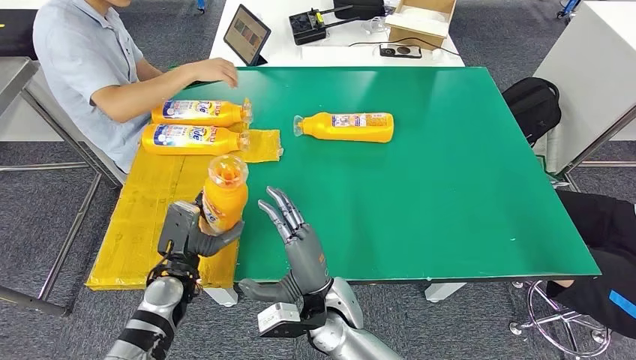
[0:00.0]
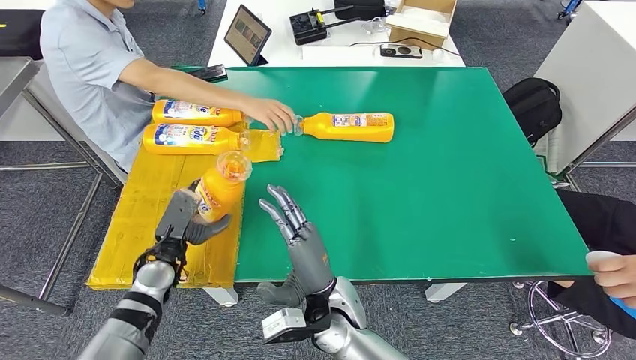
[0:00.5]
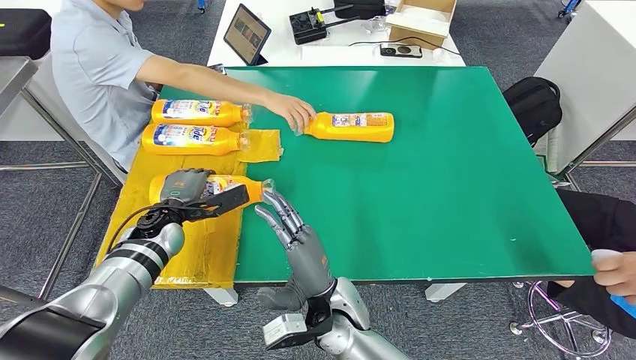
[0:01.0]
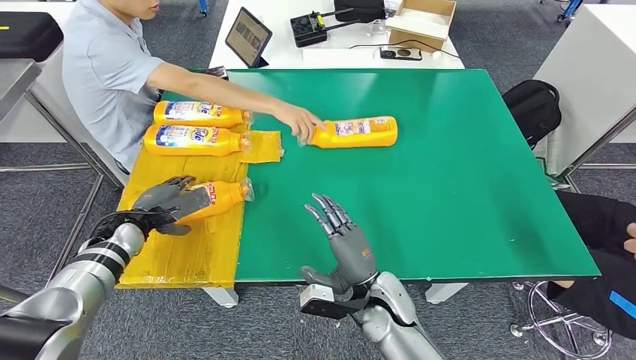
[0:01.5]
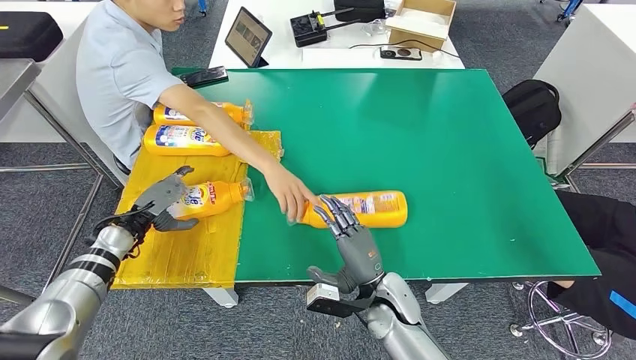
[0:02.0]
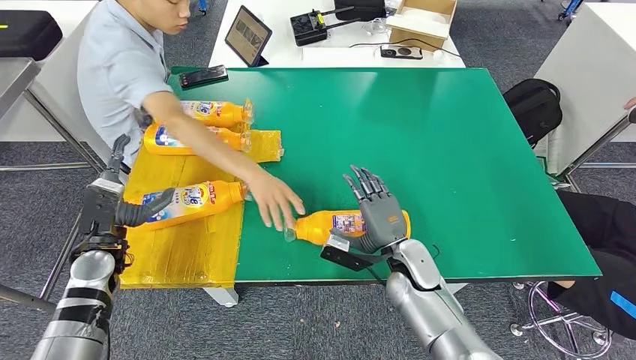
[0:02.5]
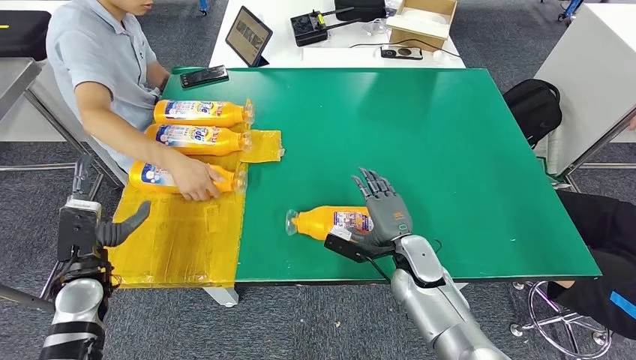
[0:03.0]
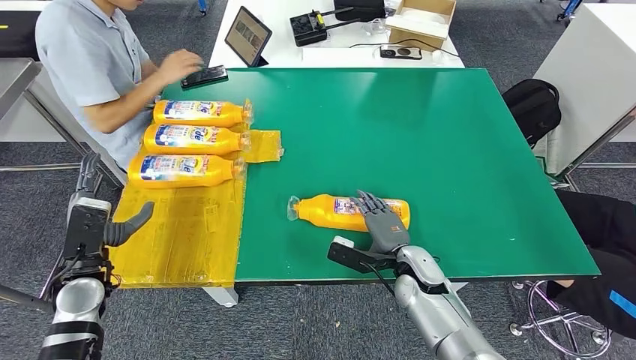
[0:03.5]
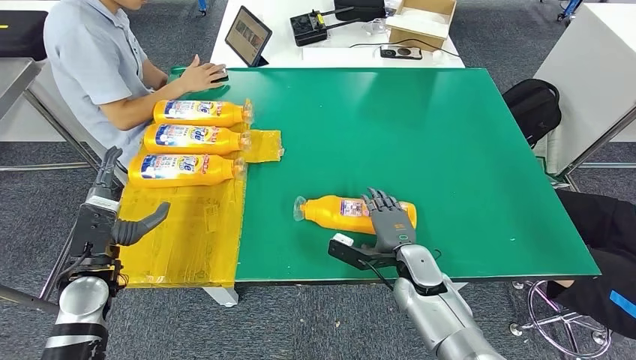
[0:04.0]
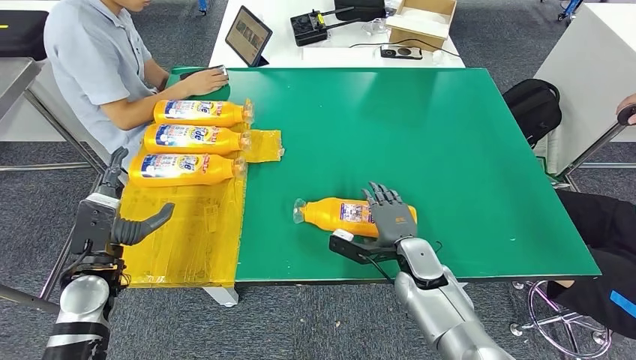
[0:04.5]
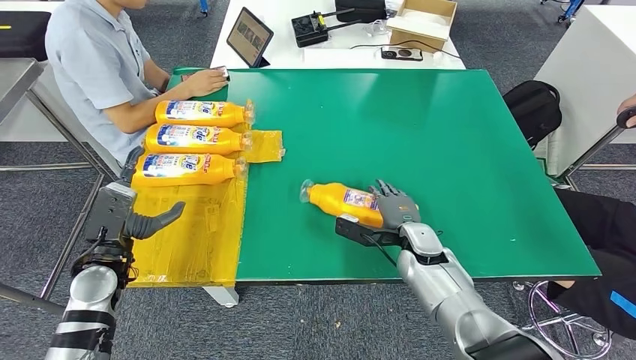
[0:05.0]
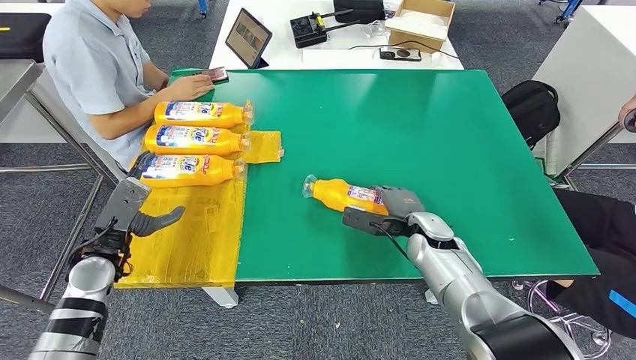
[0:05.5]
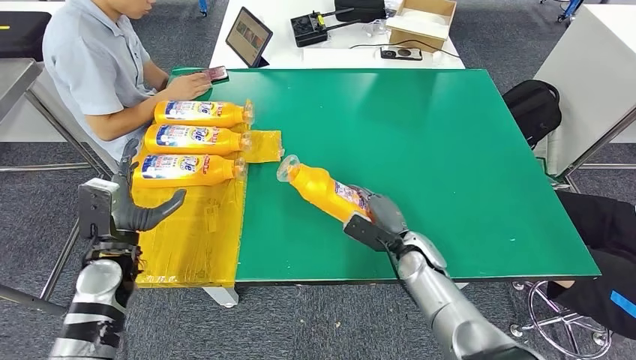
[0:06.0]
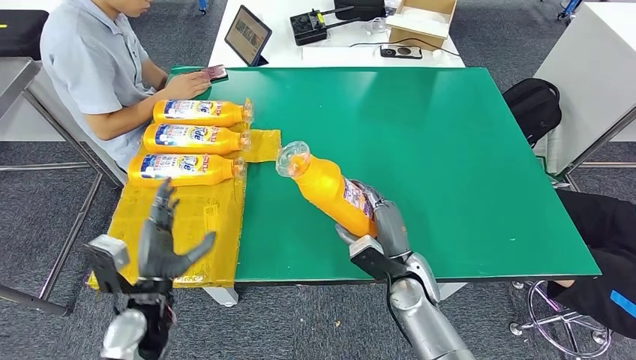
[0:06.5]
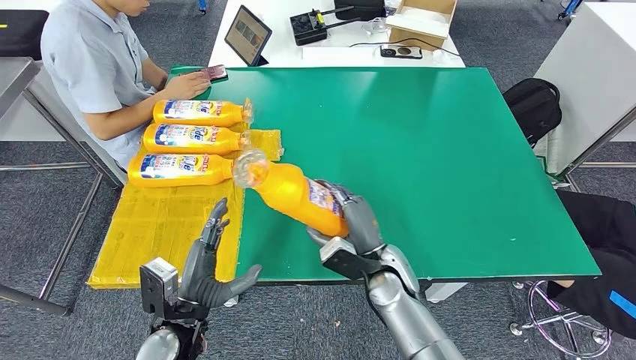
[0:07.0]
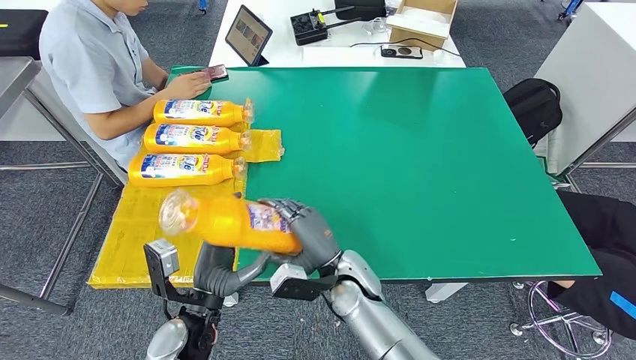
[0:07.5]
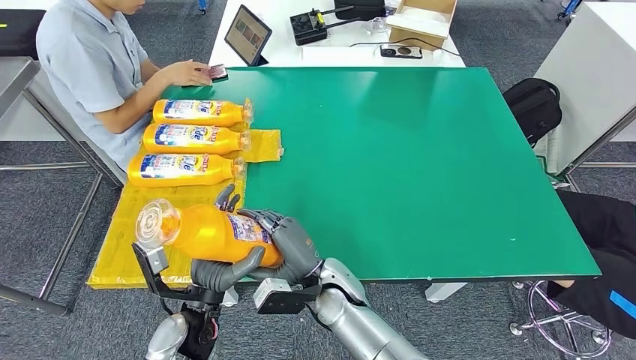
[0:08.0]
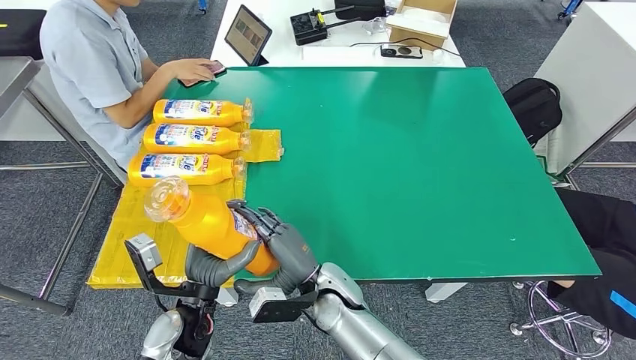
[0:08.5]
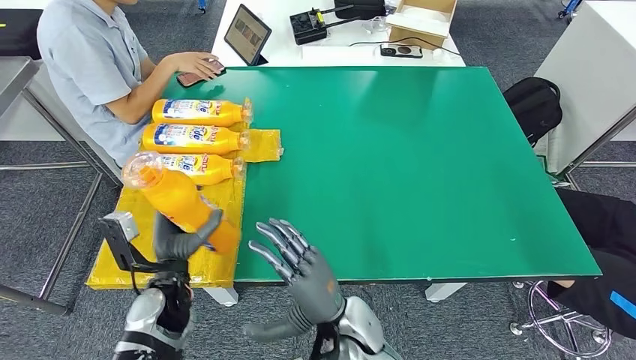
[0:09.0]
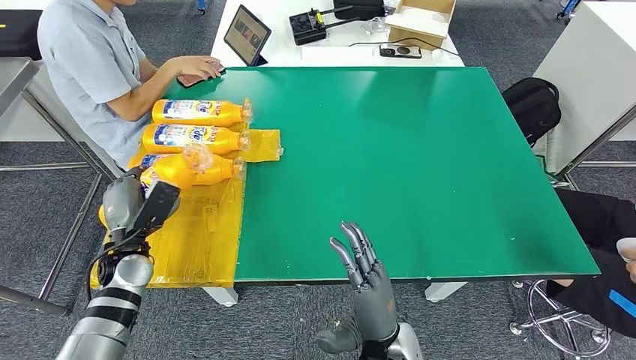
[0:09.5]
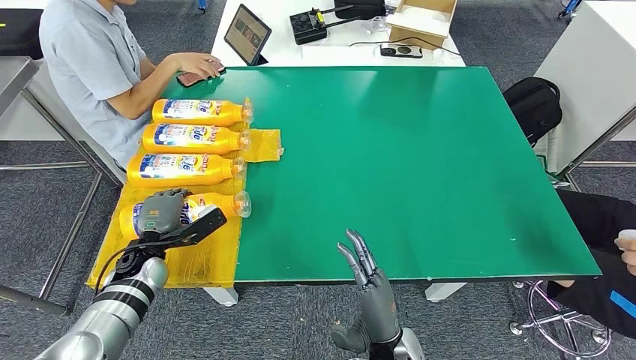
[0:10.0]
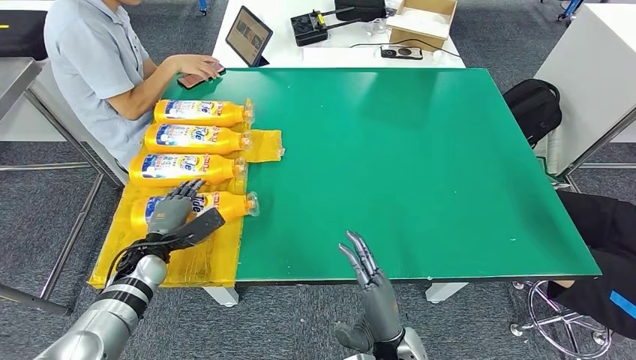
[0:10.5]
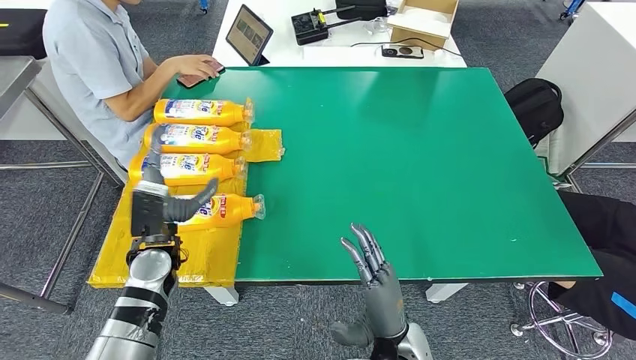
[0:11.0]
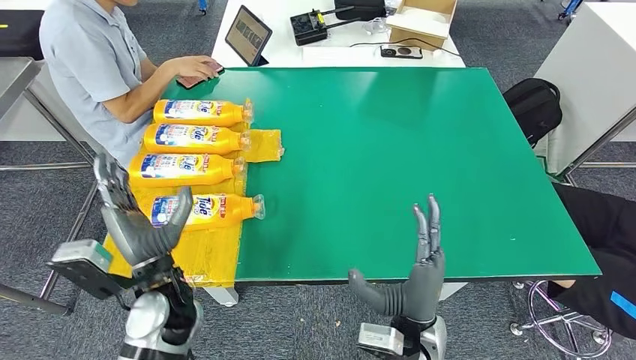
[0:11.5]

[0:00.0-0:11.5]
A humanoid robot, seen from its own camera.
Step, 0:00.0 to 0:02.0: Flip the fast-moving consumer goods bottle to the front side.
Step, 0:02.5 to 0:07.0: Pick up the fast-moving consumer goods bottle from the table.
Step, 0:07.5 to 0:11.5: Flip the fast-moving consumer goods bottle to the front side.
0:04.0 to 0:06.0: The right hand moves roughly 5 cm.
0:09.5 to 0:11.5: The left hand travels to the right, backward and upward by roughly 15 cm.
